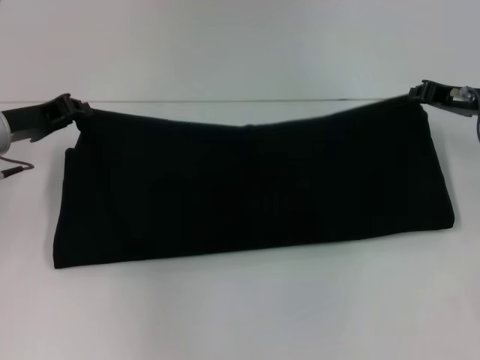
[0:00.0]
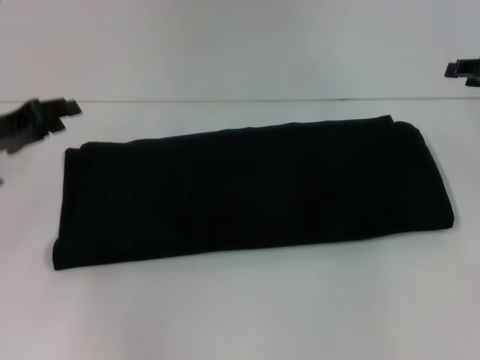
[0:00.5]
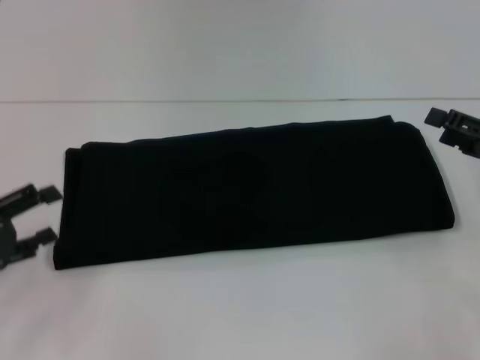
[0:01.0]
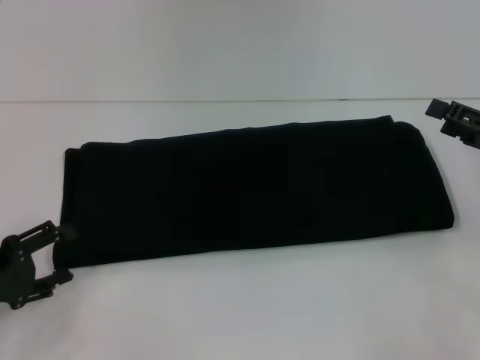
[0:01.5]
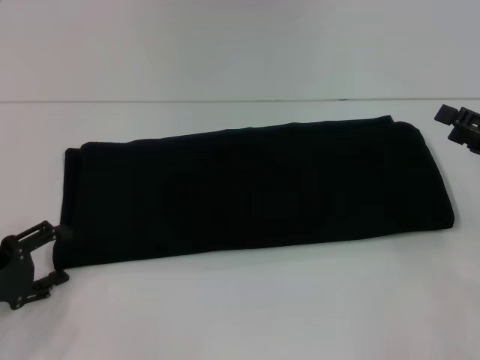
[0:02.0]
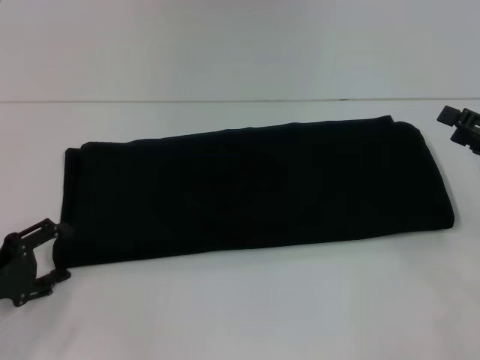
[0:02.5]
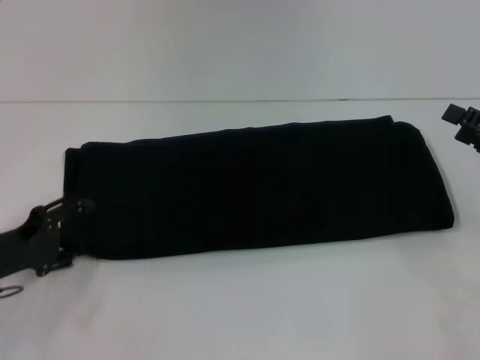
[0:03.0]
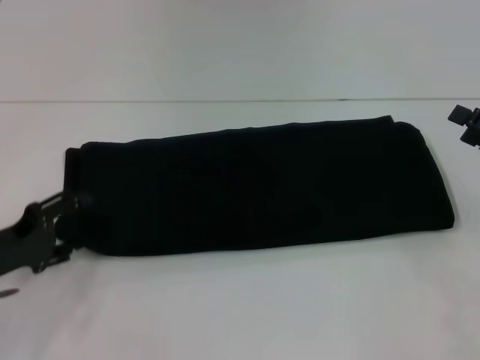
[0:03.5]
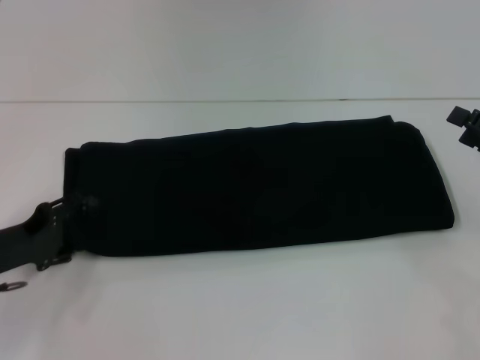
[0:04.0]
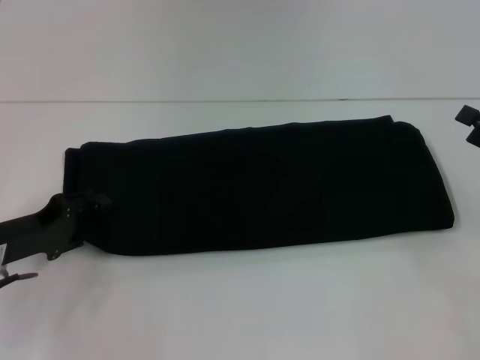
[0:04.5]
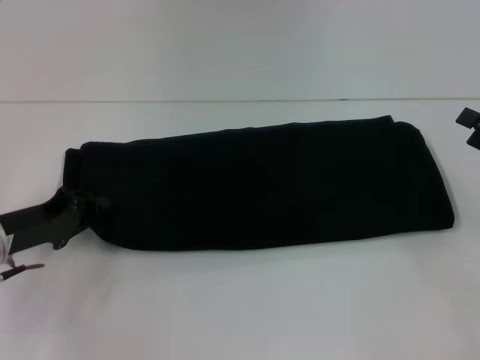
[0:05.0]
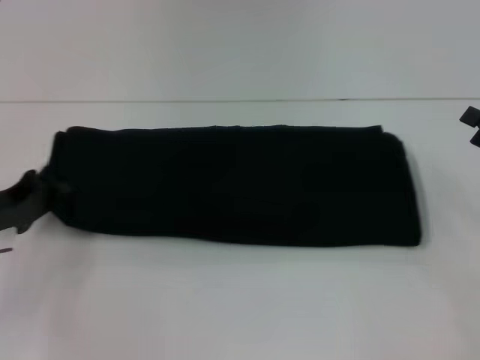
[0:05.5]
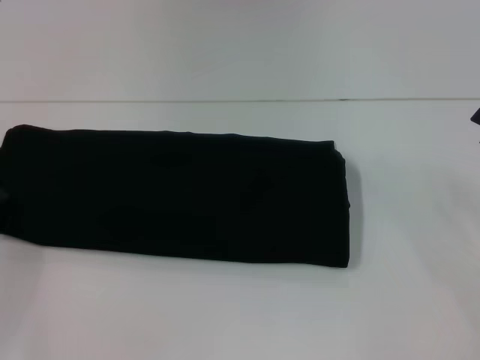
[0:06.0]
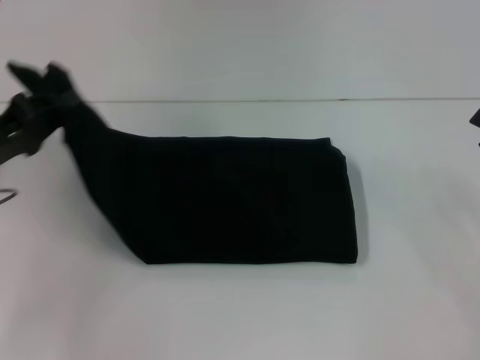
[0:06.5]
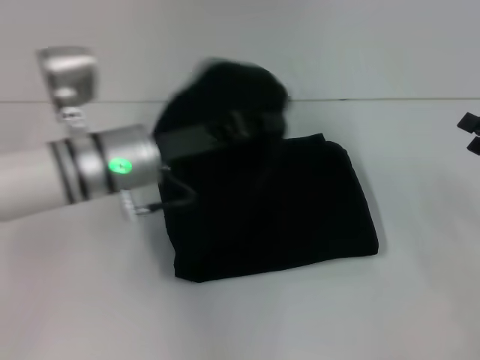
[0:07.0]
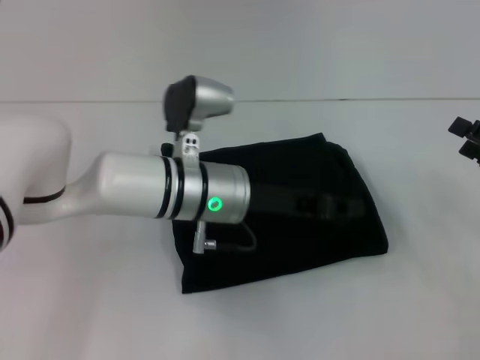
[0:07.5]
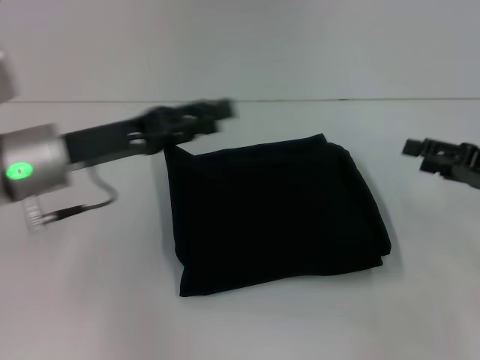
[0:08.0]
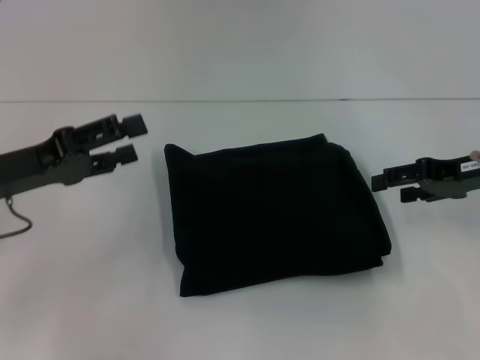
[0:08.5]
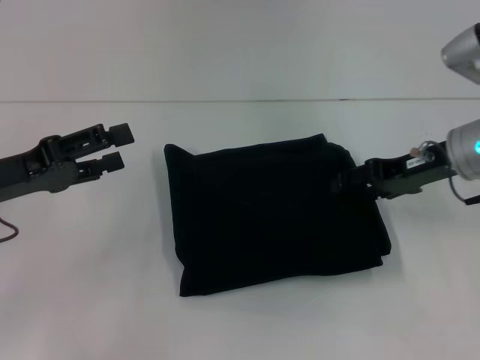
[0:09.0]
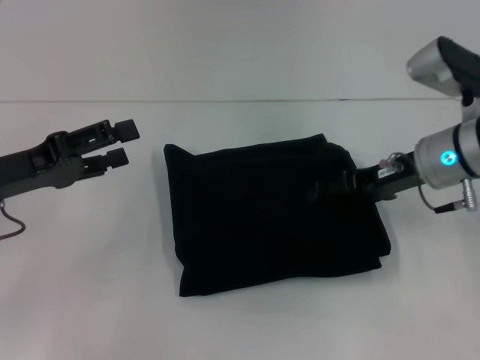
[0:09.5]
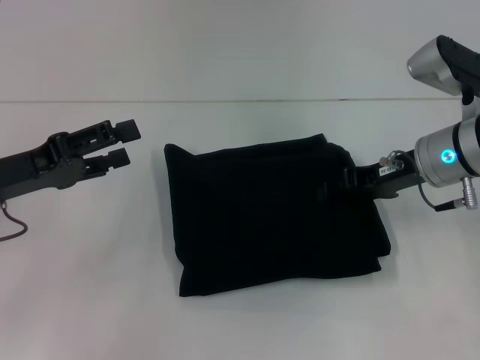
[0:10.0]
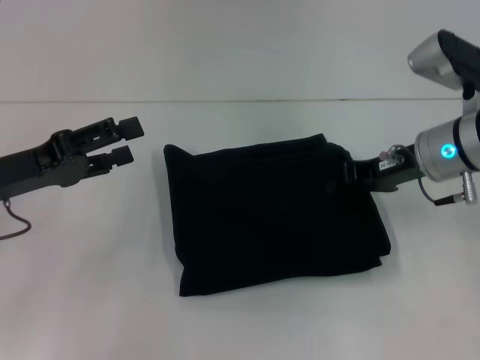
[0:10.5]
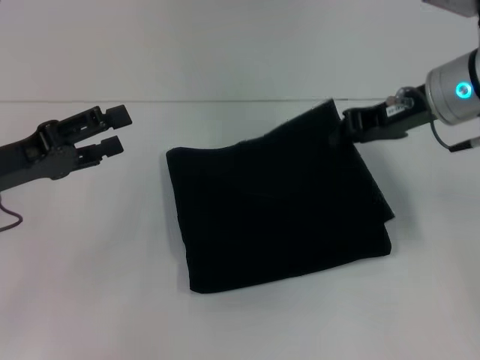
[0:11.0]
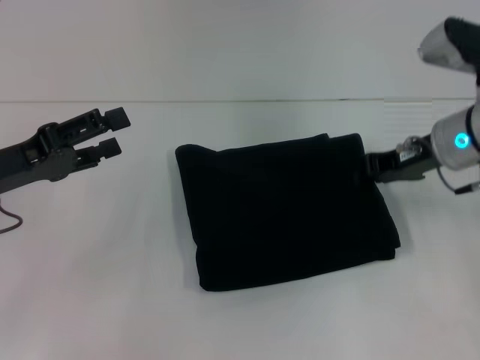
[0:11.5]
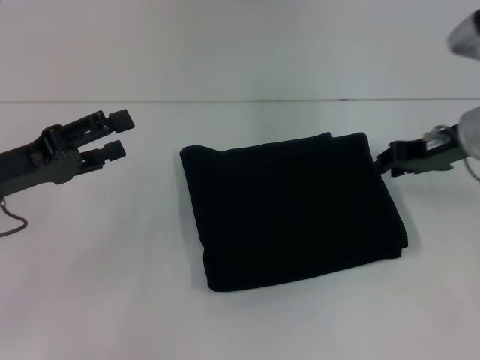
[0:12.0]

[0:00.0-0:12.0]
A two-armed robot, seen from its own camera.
Step, 0:00.0 to 0:07.5: Fold the clothes with your left hand.
0:00.0 to 0:02.0: The left gripper travels backward and downward by about 20 cm, and opens up, while the right gripper shifts some 15 cm backward and to the right, and opens its fingers.
0:02.0 to 0:04.0: The left gripper ends up approximately 5 cm from where it was.
0:04.0 to 0:06.0: The left gripper heads to the left, covering approximately 5 cm, and closes its fingers.
0:06.0 to 0:08.0: The left gripper is displaced to the right and upward by approximately 20 cm, and opens.
0:08.0 to 0:10.0: The left gripper goes some 10 cm to the left, and opens. Meanwhile the right gripper travels to the left and forward by approximately 15 cm.
0:10.0 to 0:12.0: The right gripper goes upward and returns, some 10 cm each way, and closes up.

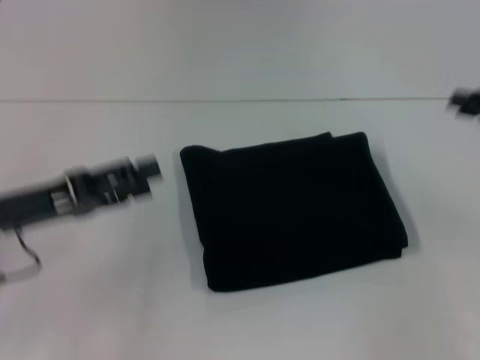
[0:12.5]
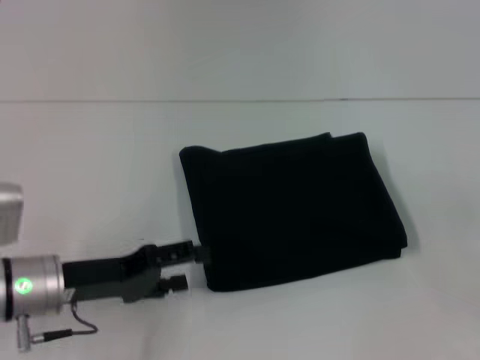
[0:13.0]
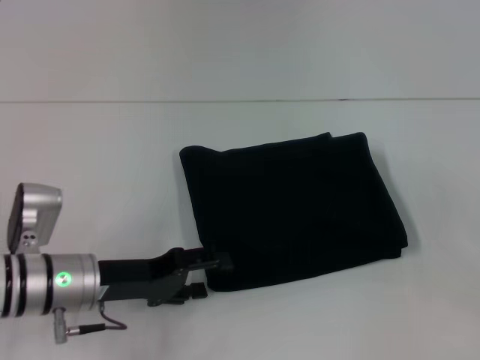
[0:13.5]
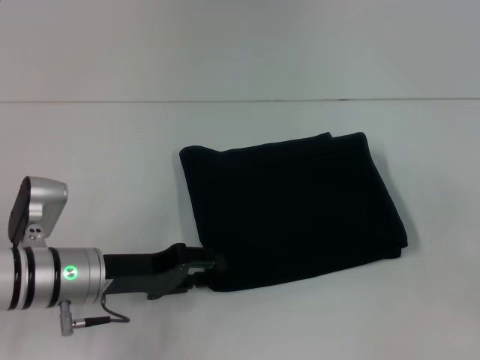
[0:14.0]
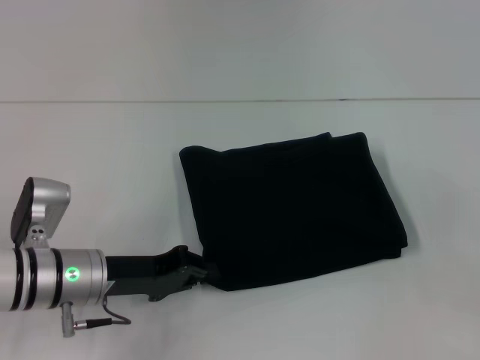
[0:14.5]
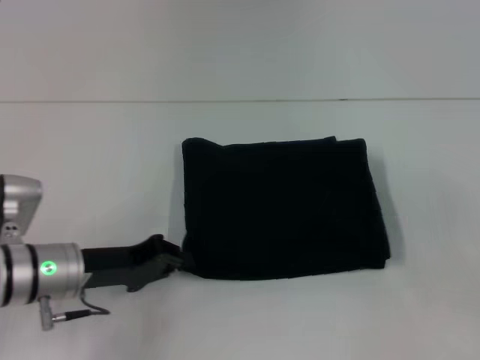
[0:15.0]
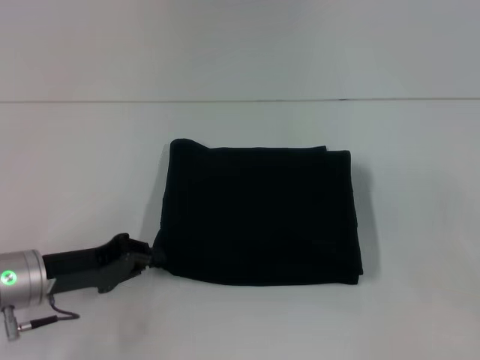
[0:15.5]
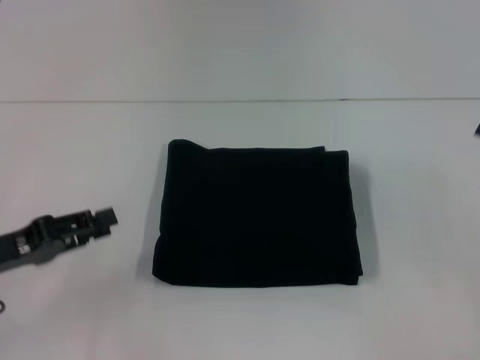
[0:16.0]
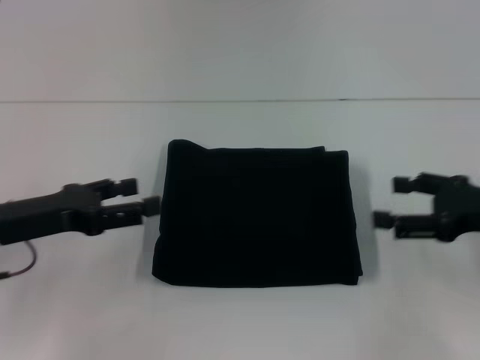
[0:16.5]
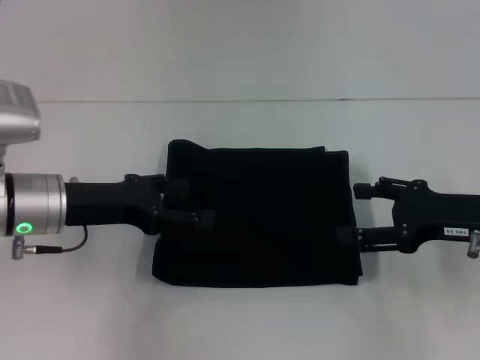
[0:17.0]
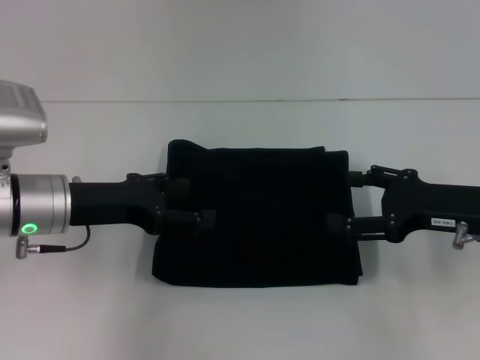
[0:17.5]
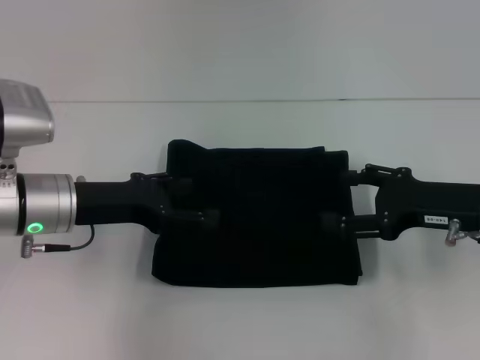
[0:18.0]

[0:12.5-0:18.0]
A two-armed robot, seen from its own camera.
0:12.5 to 0:14.5: The right gripper heads downward and backward, covering some 10 cm, and opens its fingers; the left gripper travels to the right and downward by some 10 cm, and closes up.
0:14.5 to 0:16.0: The left gripper heads to the left, covering roughly 10 cm.
0:16.0 to 0:18.0: The right gripper moves to the left, approximately 10 cm. Meanwhile the left gripper is displaced to the right and forward by roughly 10 cm, and opens.

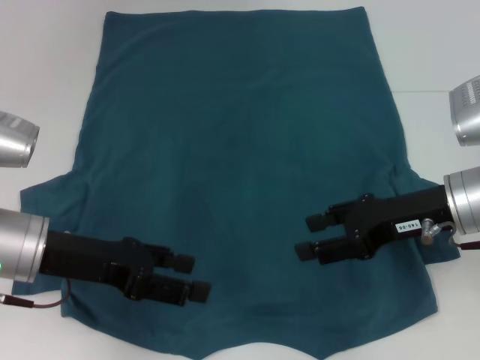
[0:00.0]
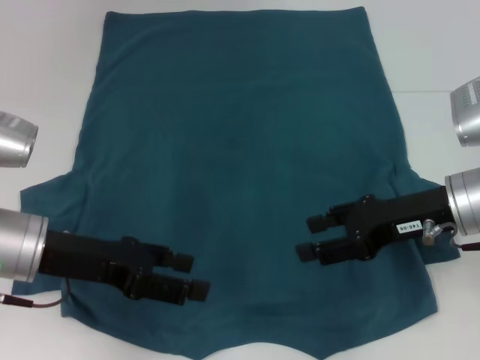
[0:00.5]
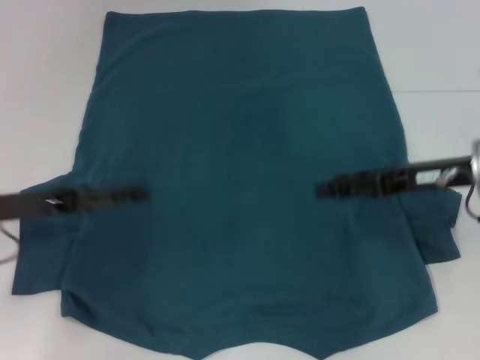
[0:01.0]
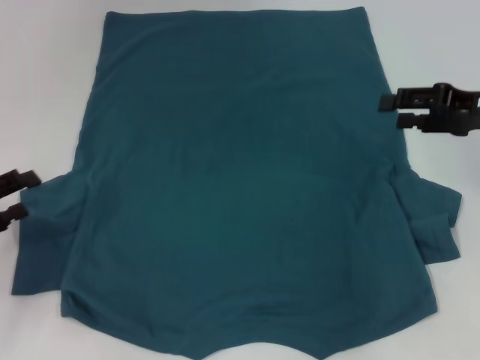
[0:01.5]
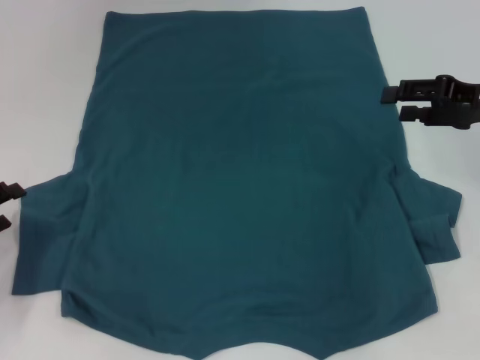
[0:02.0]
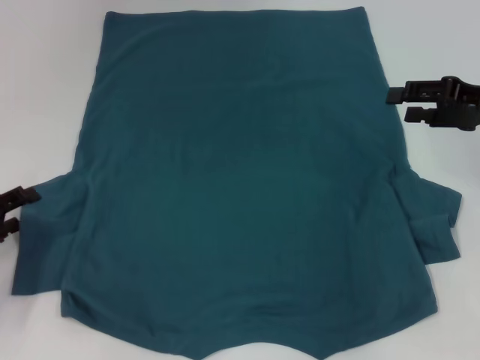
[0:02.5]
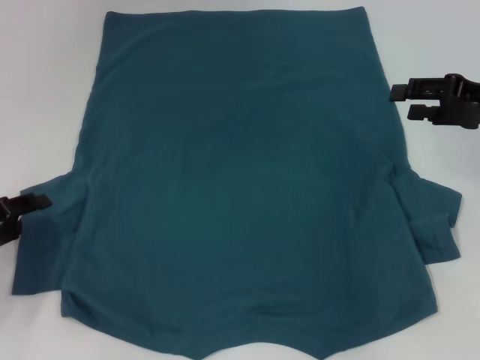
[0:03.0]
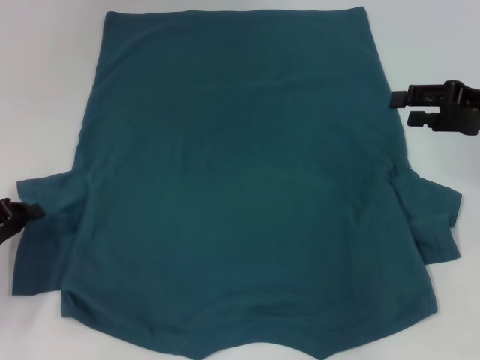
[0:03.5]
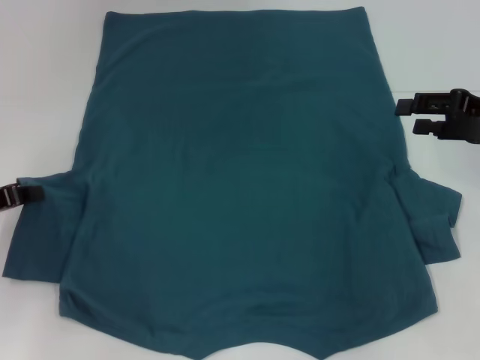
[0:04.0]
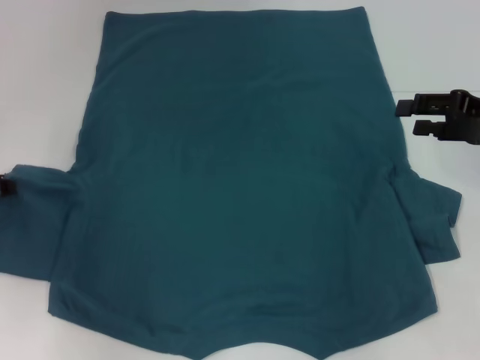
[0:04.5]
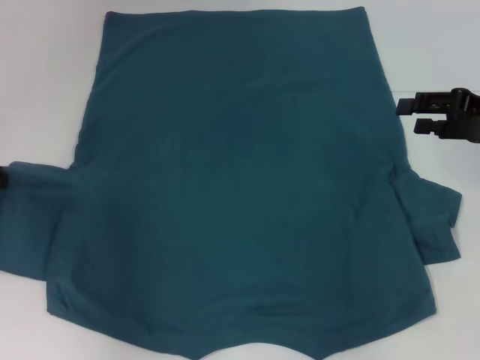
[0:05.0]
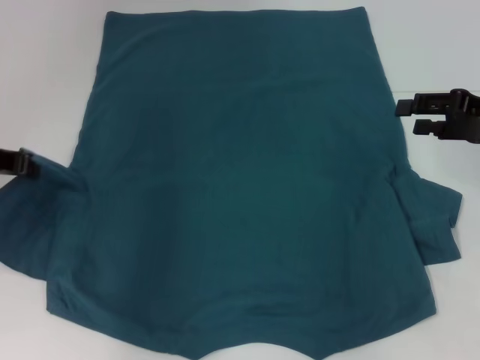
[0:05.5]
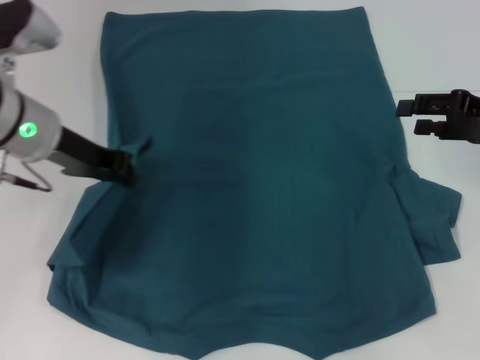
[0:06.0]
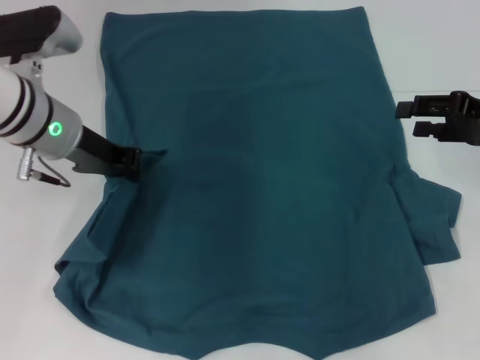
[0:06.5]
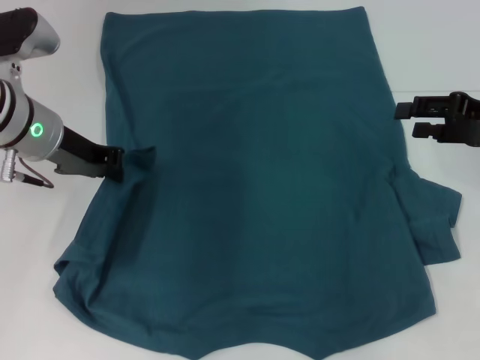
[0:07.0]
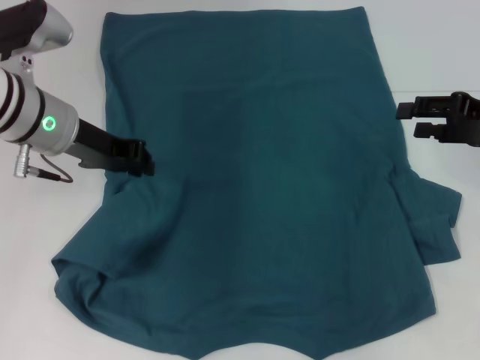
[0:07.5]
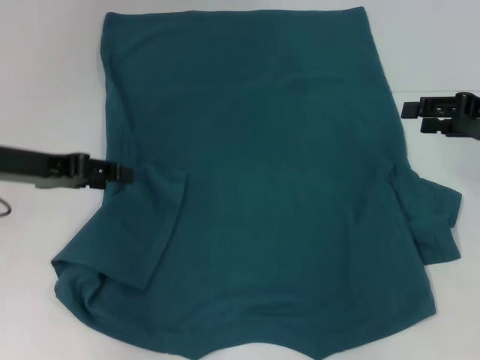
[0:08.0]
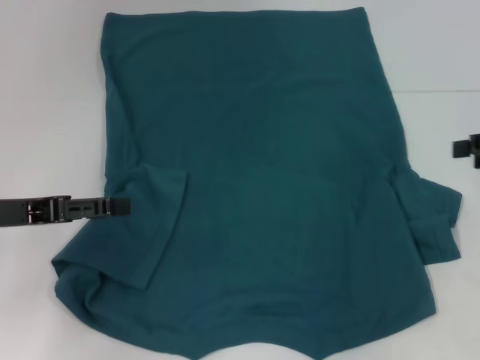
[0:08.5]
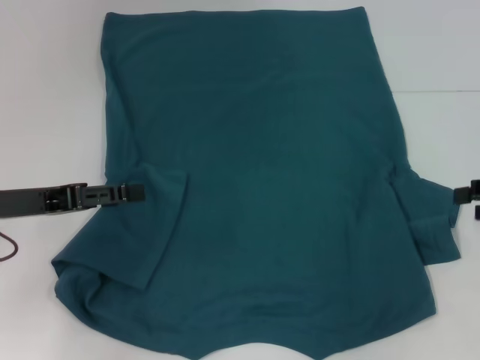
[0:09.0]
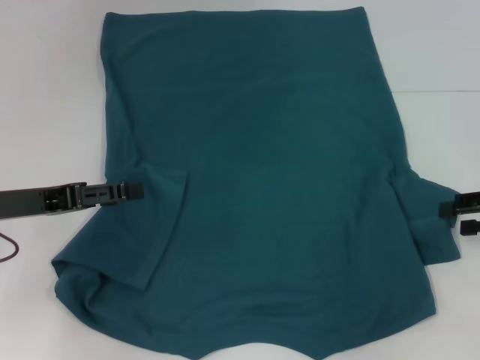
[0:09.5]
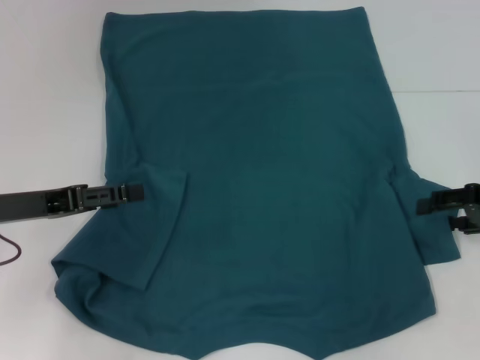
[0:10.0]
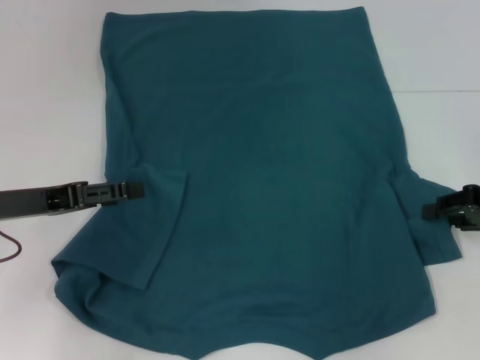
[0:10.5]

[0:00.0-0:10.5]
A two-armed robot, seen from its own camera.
Step, 0:00.0 to 0:07.5: Fold the bottom left sleeve with your left hand.
0:00.0 to 0:02.0: The left gripper shifts about 15 cm to the left and downward, while the right gripper shifts roughly 10 cm to the right and forward.
0:02.0 to 0:04.0: The left gripper ends up some 5 cm from where it was, and closes up.
0:04.0 to 0:06.5: The left gripper travels to the right, forward and upward by roughly 20 cm.
0:06.5 to 0:08.5: The left gripper travels backward and to the left by some 15 cm, and opens up, while the right gripper ends up approximately 5 cm from where it was.
0:08.5 to 0:10.5: The right gripper is displaced downward by about 5 cm.
